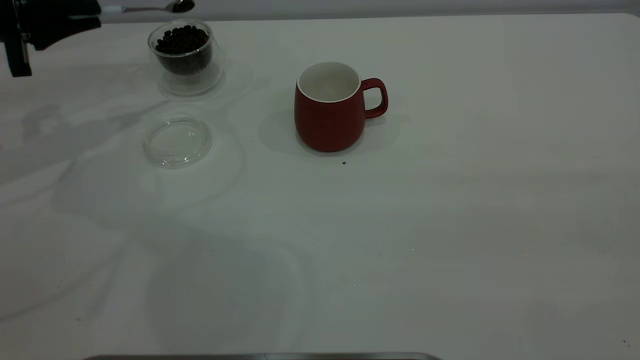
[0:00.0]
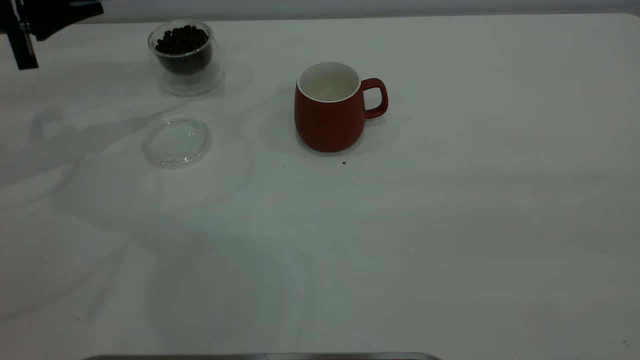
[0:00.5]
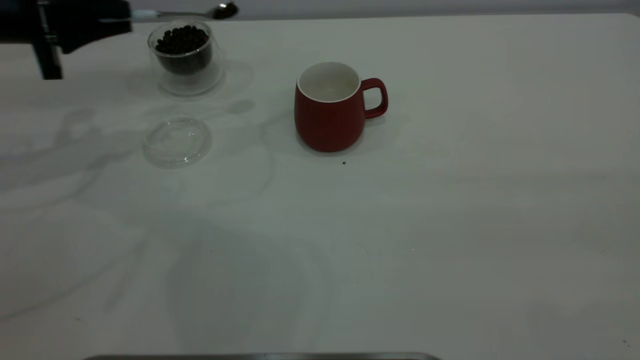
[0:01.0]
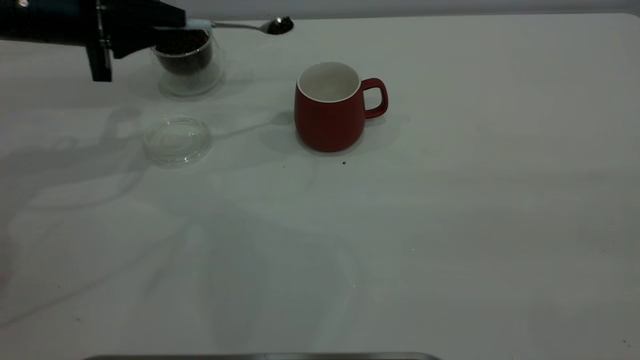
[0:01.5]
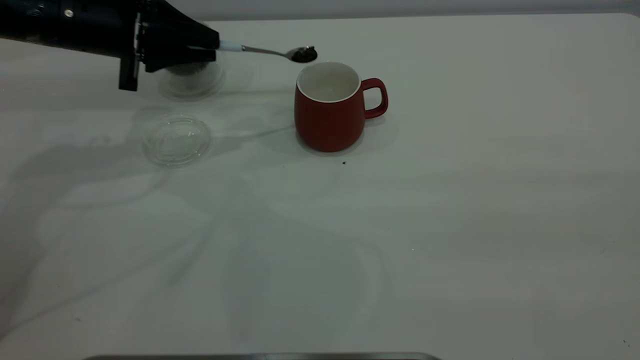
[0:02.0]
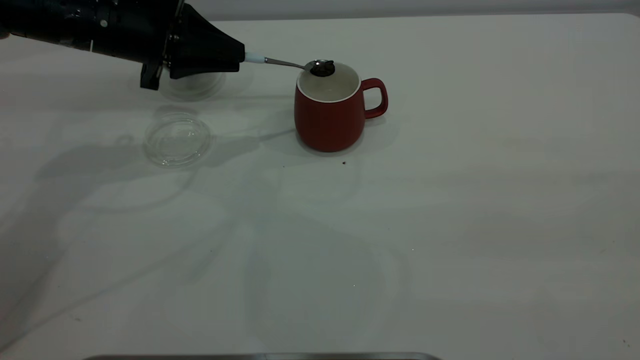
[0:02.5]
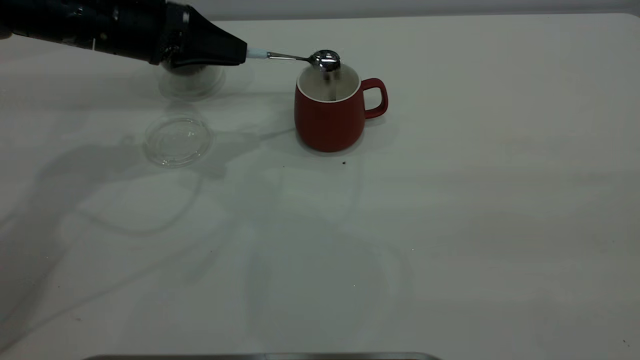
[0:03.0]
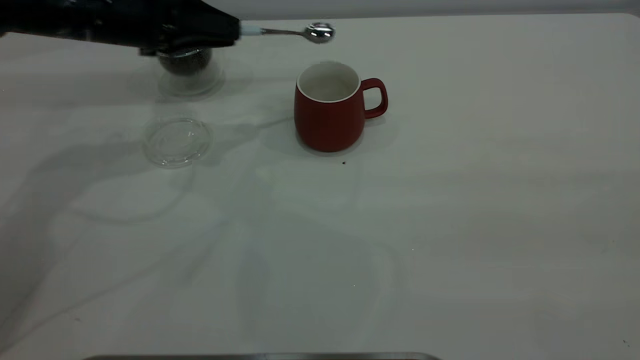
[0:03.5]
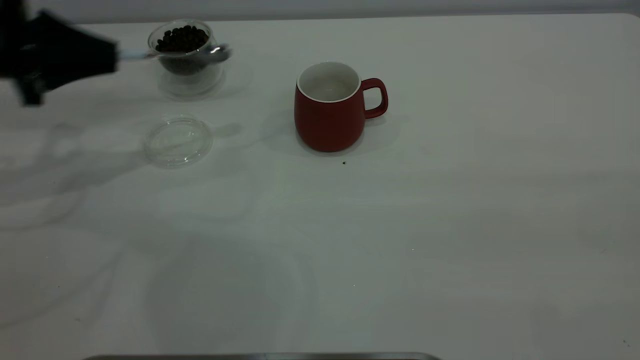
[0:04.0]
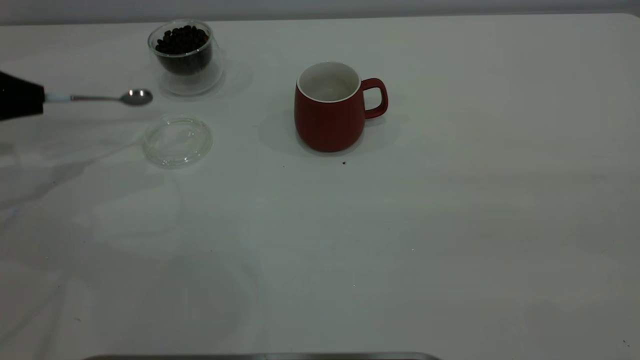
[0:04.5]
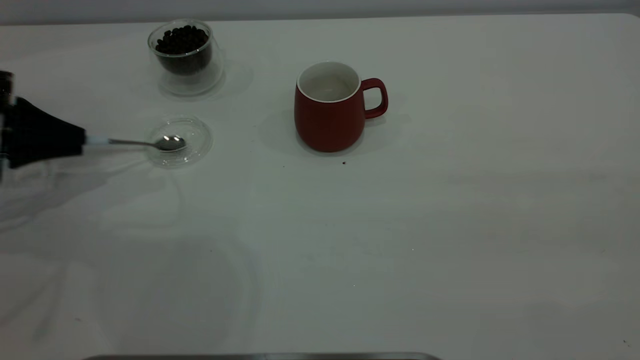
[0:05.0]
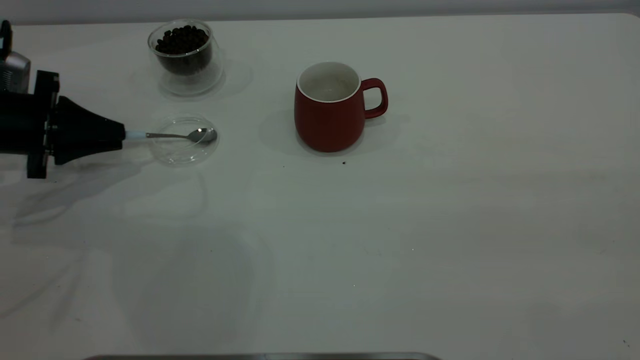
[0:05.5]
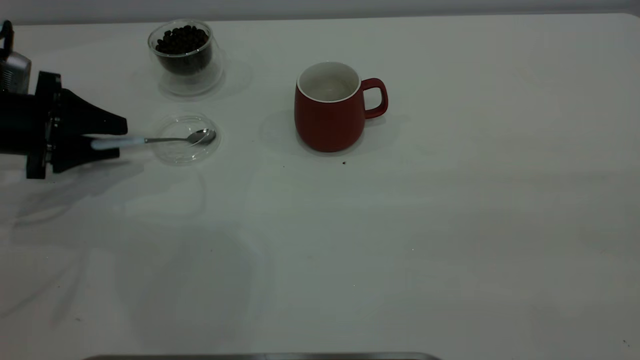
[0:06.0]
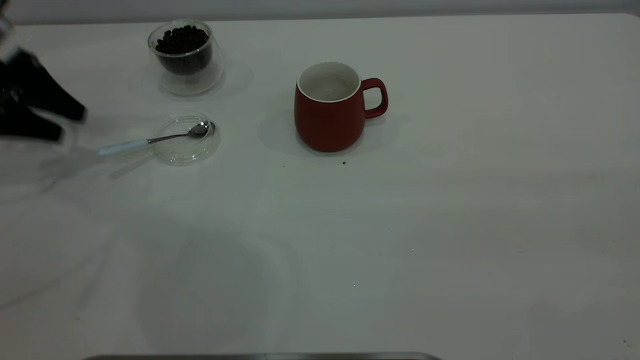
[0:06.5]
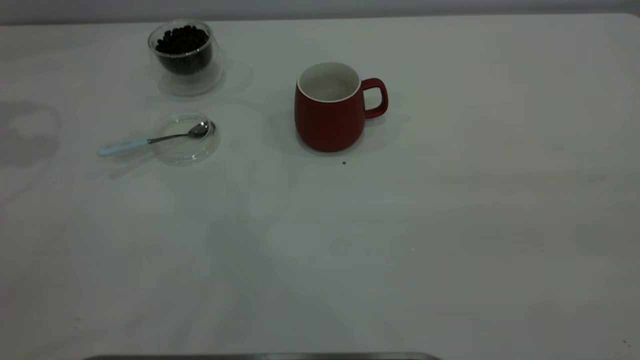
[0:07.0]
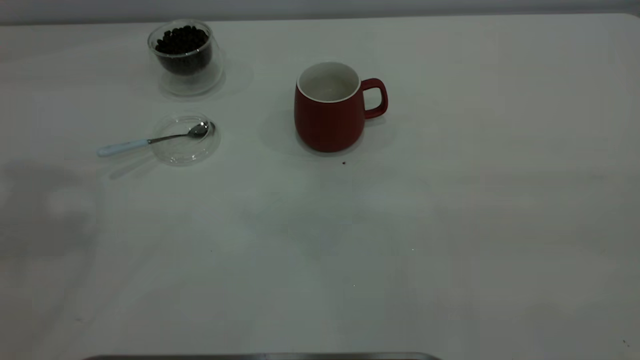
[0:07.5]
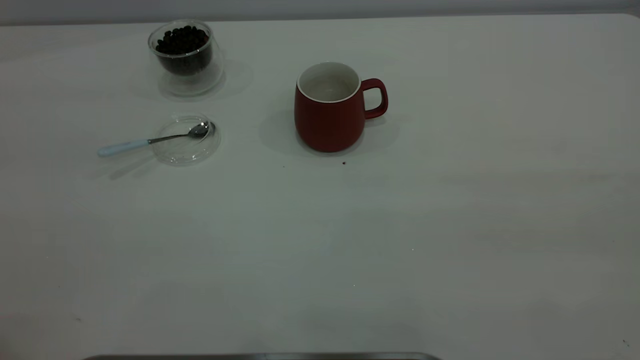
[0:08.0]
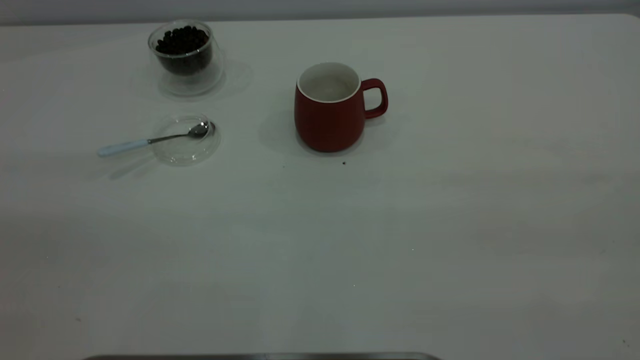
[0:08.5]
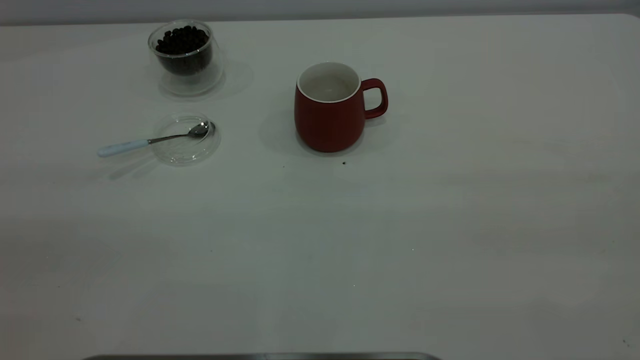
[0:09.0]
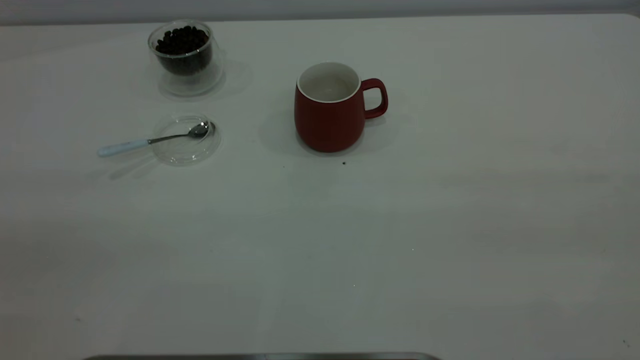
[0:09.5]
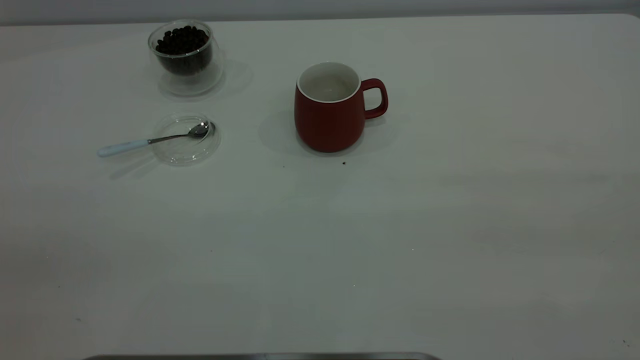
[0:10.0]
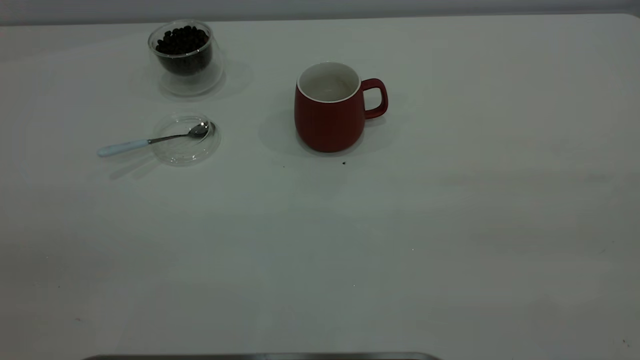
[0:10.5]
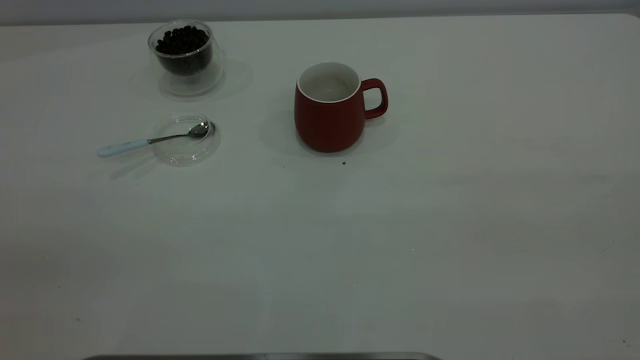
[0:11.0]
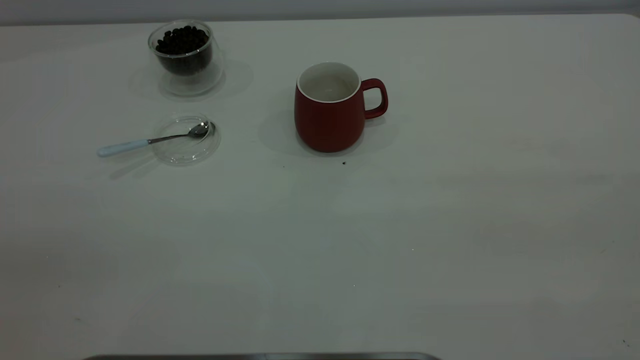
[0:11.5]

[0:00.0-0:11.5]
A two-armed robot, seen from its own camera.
Task of the whole recording: the right gripper place the red cup in the center of the table, the left gripper take the blue spoon from the cup lid and scoop out the coffee beans from the coffee cup and put them into the red cup, the left gripper put the spoon back into the cup lid.
Step, 0:00.0 to 0:03.0: Scoop a spoonful of beans into the cup.
Step, 0:03.5 to 0:06.0: Place the spoon back in its original place.
0:00.0 to 0:02.0: The left gripper moves to the right, approximately 10 cm.
0:02.0 to 0:04.0: The left gripper moves to the left, roughly 10 cm.
0:04.0 to 0:06.0: The left gripper shifts roughly 5 cm downward, and opens.
0:06.0 to 0:07.5: The left gripper moves upward, about 40 cm.
